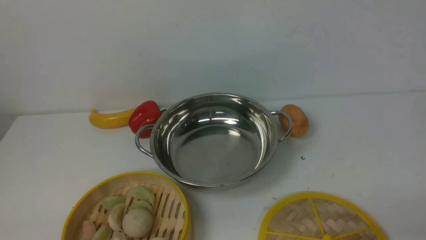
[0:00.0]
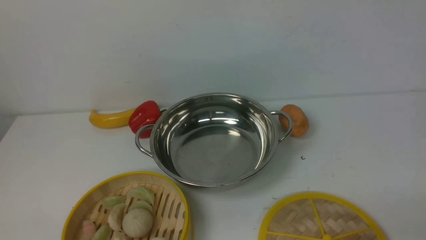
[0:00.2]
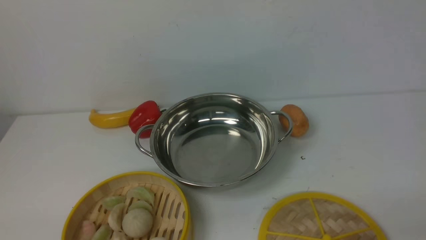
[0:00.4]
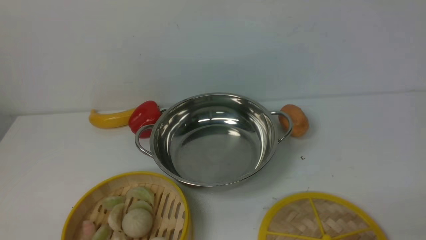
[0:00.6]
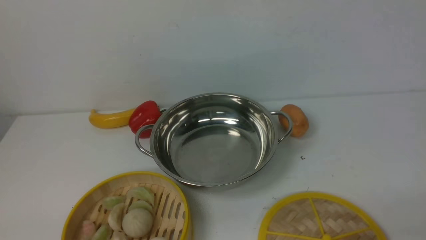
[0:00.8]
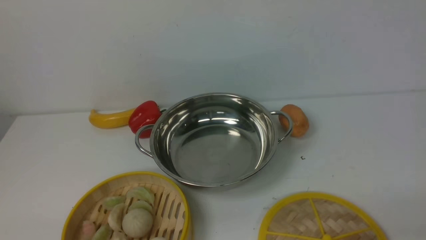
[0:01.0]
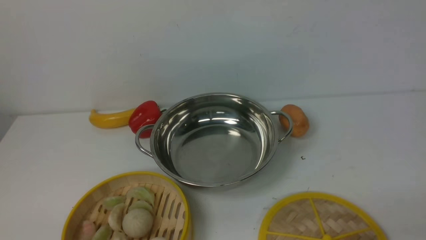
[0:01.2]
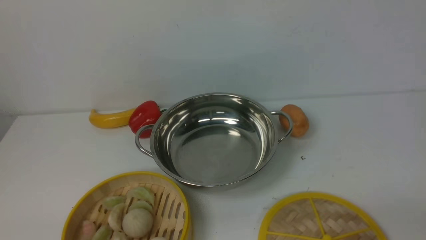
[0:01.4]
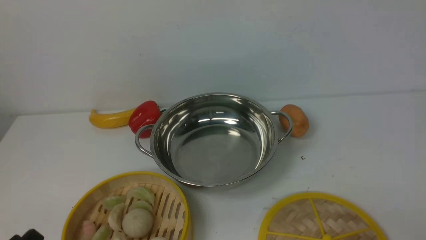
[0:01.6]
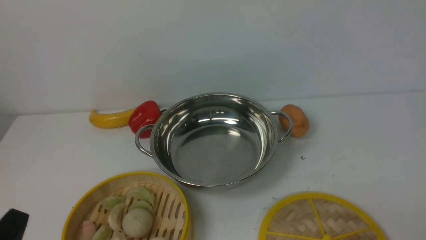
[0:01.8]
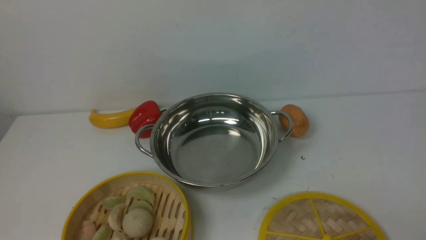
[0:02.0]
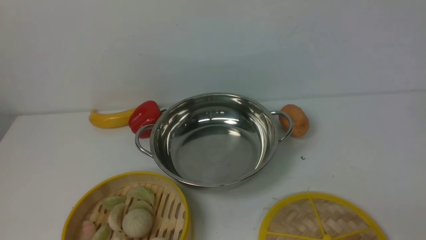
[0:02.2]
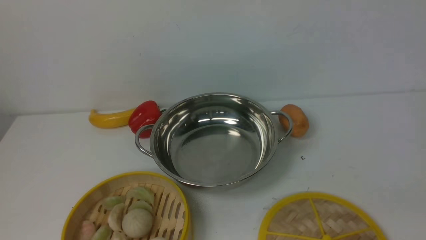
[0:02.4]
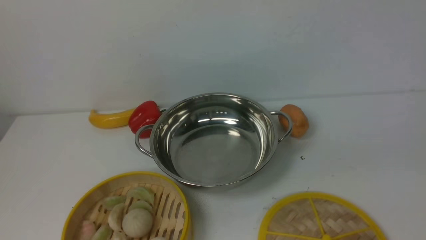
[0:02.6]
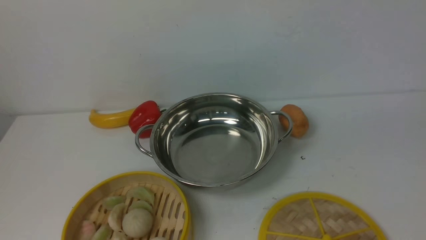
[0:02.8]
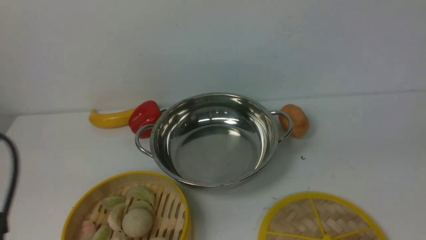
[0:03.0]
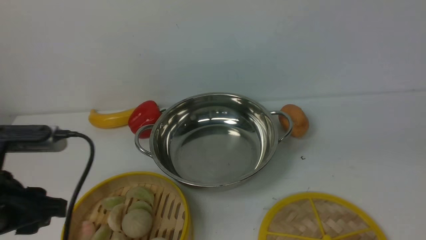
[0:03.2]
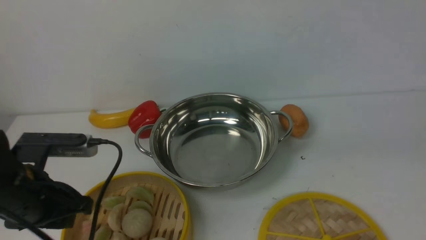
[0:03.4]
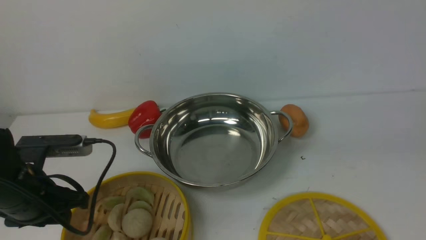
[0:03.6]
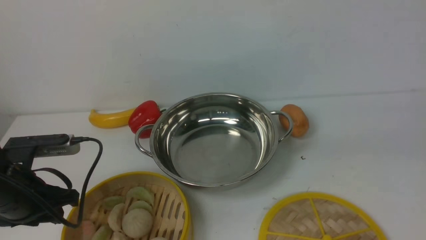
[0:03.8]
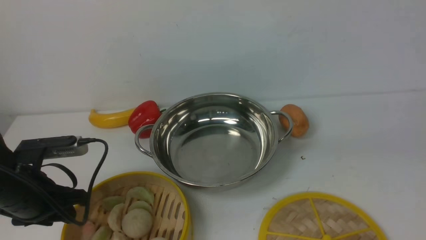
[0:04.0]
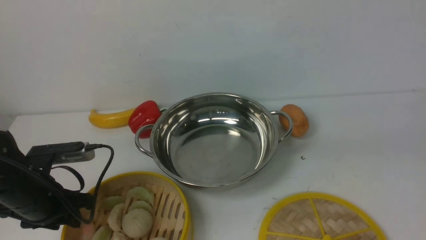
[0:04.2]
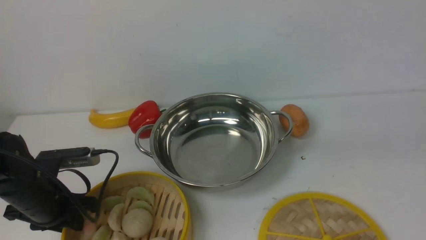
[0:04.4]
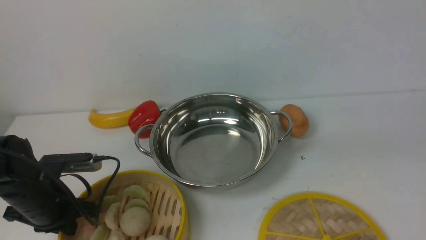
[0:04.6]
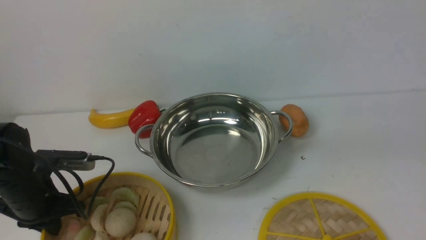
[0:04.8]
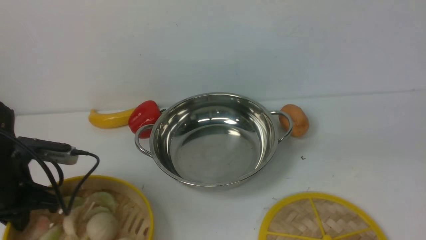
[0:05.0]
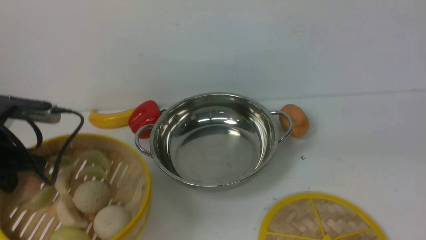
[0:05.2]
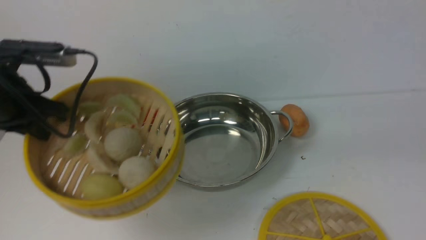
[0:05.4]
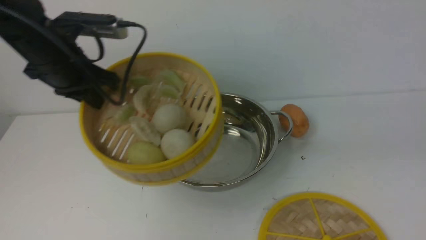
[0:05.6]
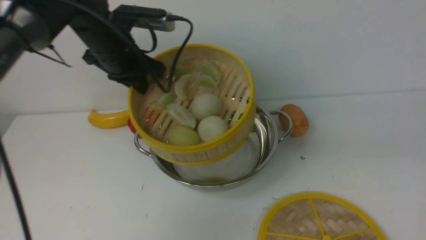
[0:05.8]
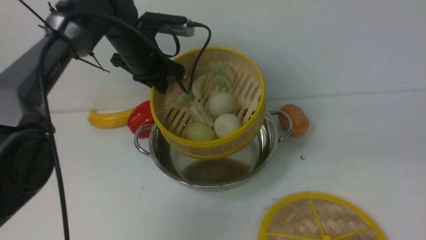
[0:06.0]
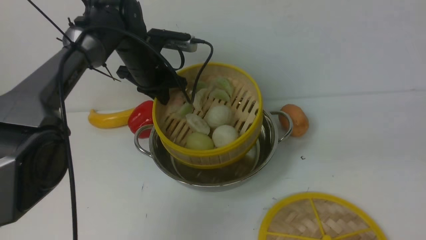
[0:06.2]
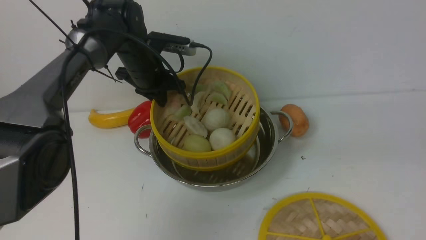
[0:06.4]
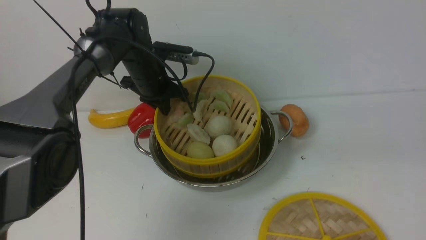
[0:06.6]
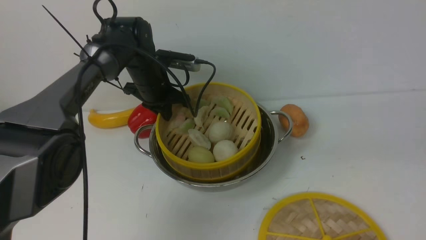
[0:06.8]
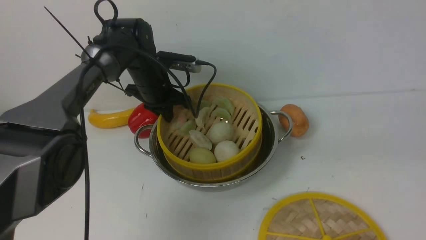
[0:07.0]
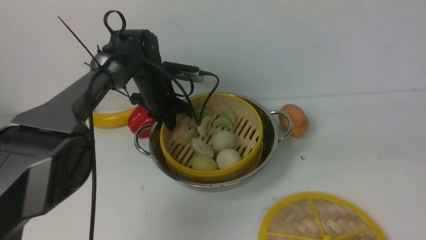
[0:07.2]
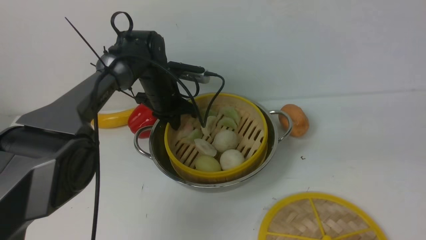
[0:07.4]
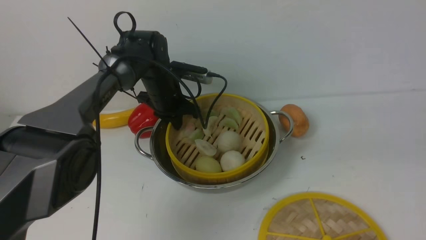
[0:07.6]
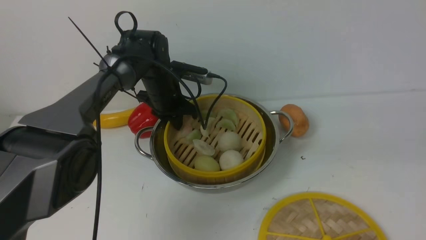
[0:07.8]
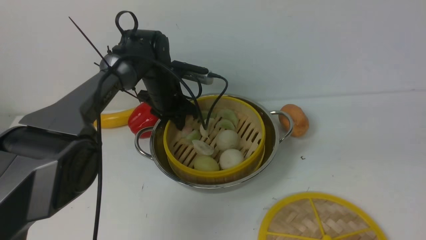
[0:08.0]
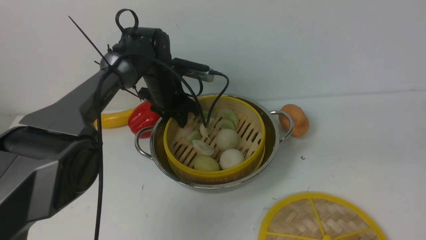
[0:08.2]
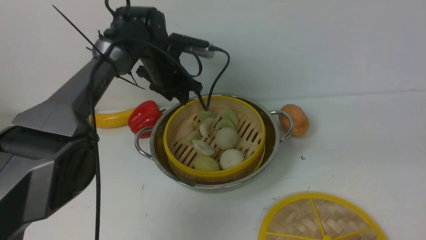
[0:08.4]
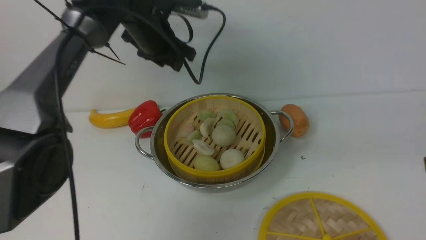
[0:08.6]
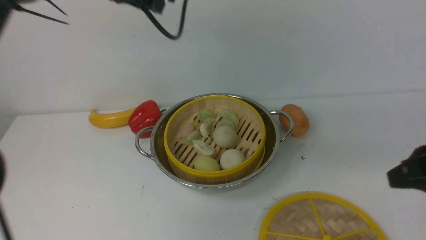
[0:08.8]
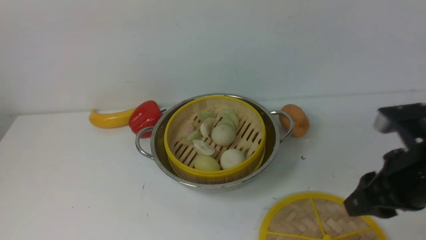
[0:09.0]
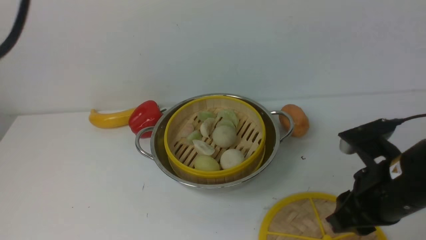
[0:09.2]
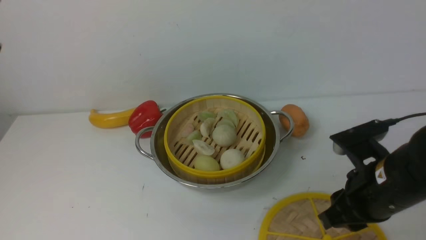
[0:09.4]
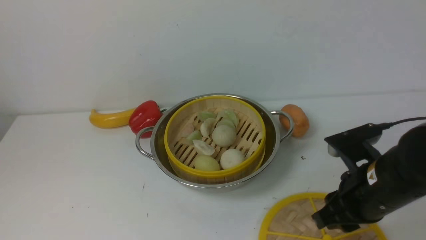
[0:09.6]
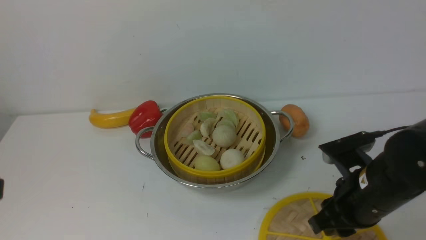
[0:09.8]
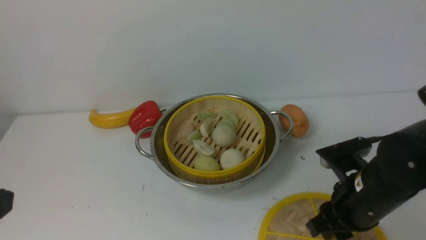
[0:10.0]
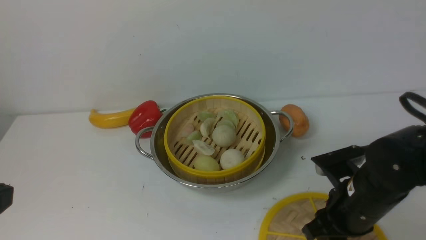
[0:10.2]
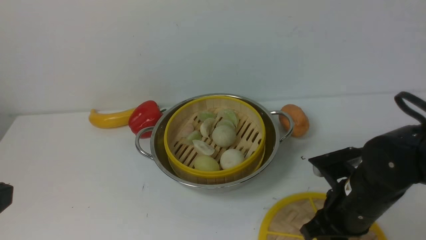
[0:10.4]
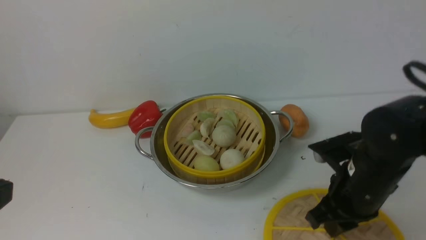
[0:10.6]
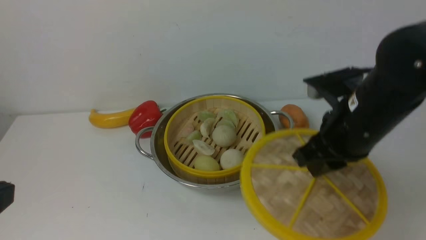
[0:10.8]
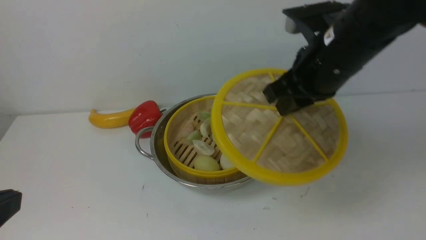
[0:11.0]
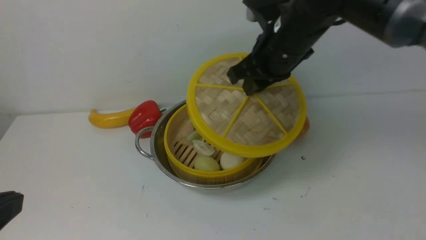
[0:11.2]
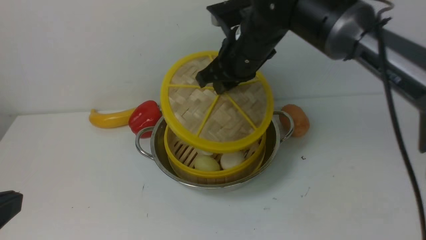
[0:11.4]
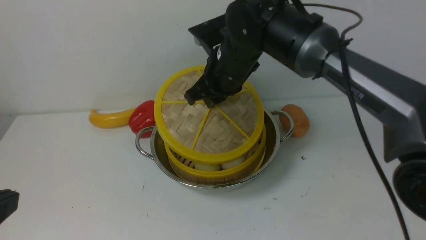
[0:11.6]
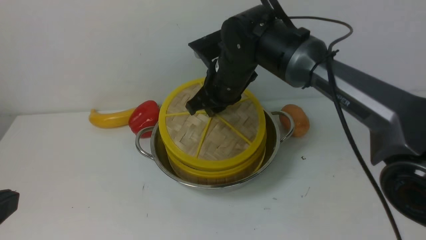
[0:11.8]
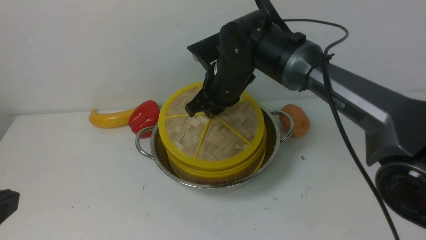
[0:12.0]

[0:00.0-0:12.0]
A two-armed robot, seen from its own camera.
Task of the whole recording: place the steamer in the pot on the white table, and put the lid on the steamer.
Step, 0:00.0 to 0:05.0: use the left arm to lift the steamer closest to it.
Step, 0:05.2 to 0:08.6: use the left arm to put the steamer into the iron steamer pot in the middle.
Step, 0:08.8 to 0:10.8: use the right arm to lift the lid of the steamer.
0:01.6 to 0:03.0: The left gripper heads upward and forward, covering approximately 15 cm.
0:03.0 to 0:04.4: The left gripper shifts approximately 20 cm downward and forward, and closes.
0:04.4 to 0:06.0: The left gripper is displaced forward, to the right and upward by some 25 cm, and closes its fingers.
0:06.0 to 0:07.6: The left gripper goes some 10 cm downward.
0:07.6 to 0:09.0: The left gripper heads upward and backward, covering about 40 cm, and opens and closes again. Meanwhile the right gripper is displaced to the left and downward by about 10 cm.
0:09.0 to 0:10.4: The right gripper is displaced downward and to the left by roughly 10 cm.
0:10.4 to 0:12.0: The right gripper is displaced forward and to the left by about 25 cm.

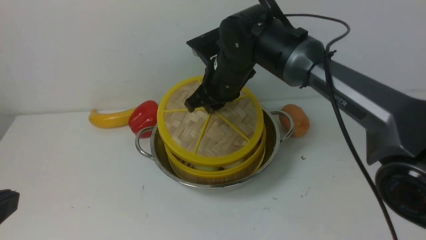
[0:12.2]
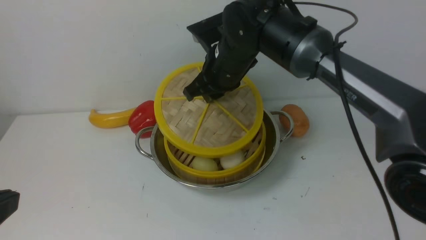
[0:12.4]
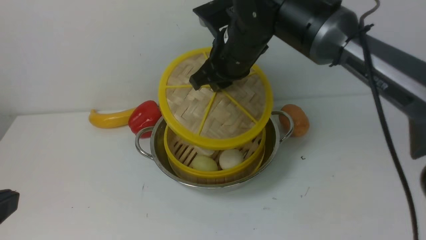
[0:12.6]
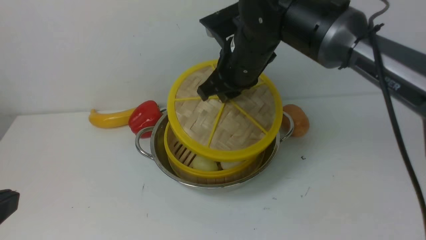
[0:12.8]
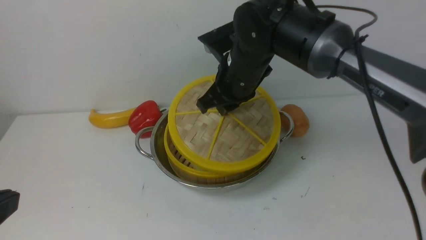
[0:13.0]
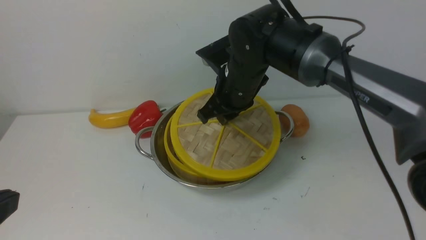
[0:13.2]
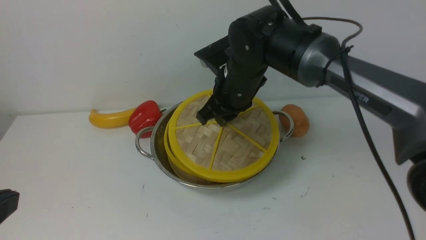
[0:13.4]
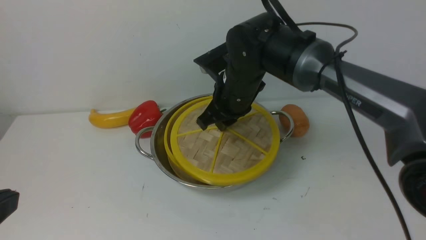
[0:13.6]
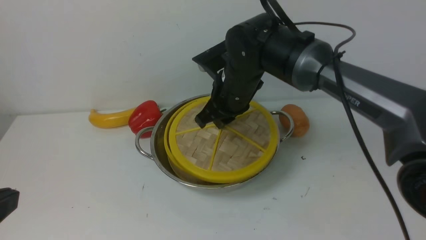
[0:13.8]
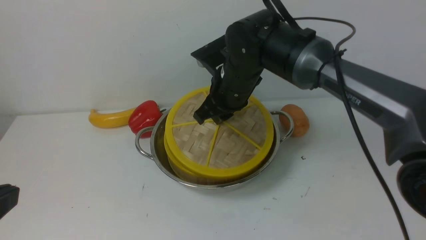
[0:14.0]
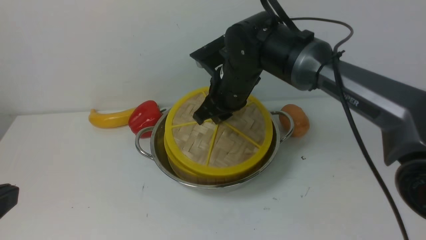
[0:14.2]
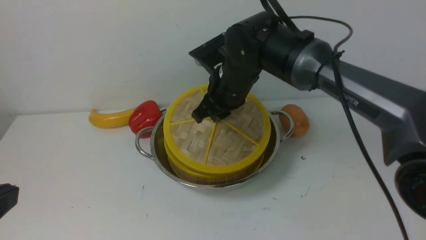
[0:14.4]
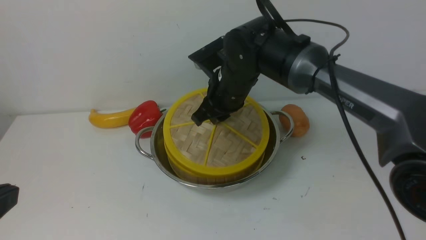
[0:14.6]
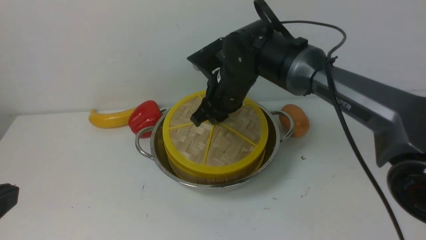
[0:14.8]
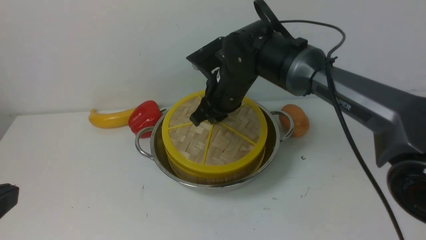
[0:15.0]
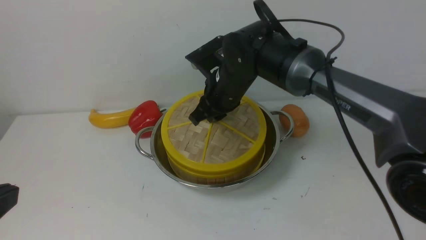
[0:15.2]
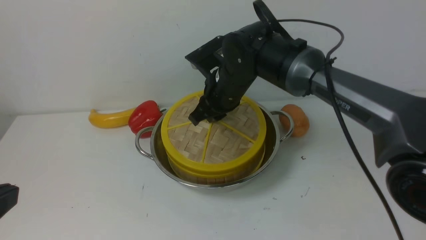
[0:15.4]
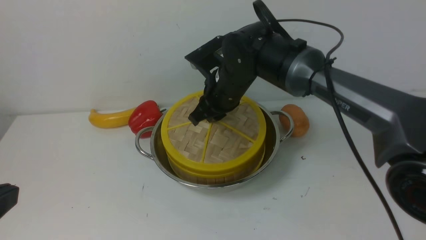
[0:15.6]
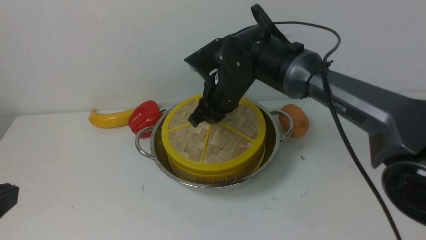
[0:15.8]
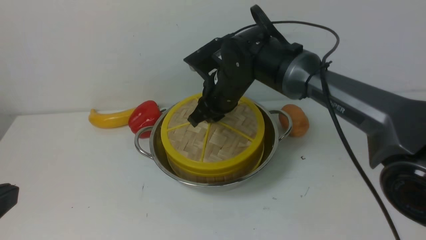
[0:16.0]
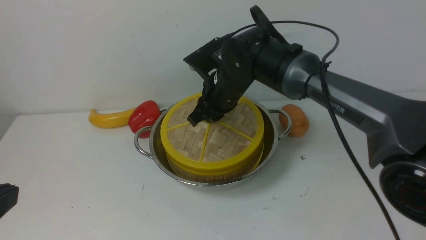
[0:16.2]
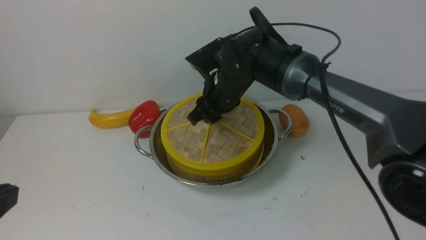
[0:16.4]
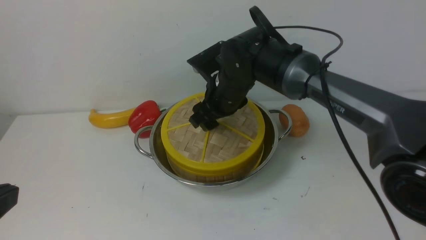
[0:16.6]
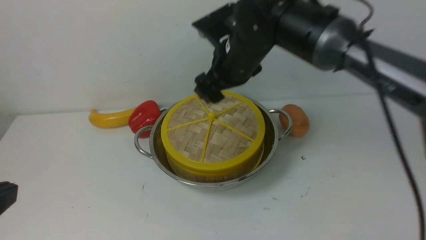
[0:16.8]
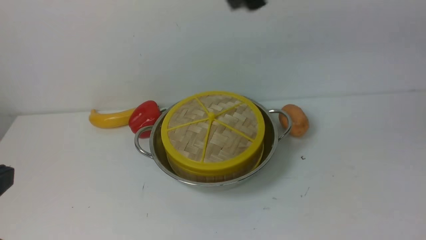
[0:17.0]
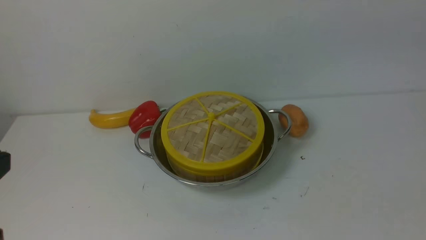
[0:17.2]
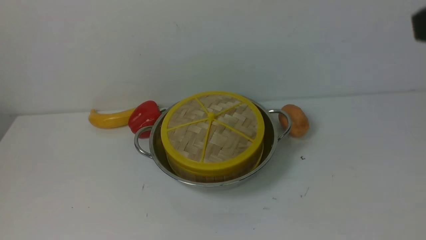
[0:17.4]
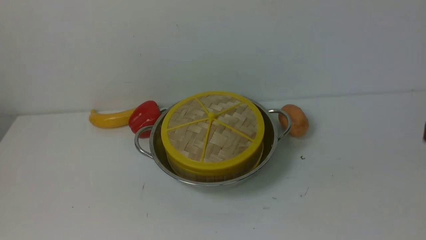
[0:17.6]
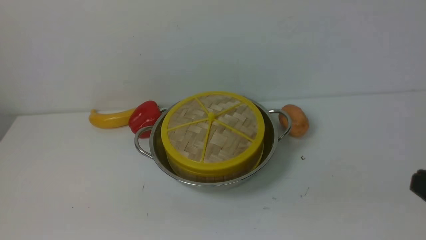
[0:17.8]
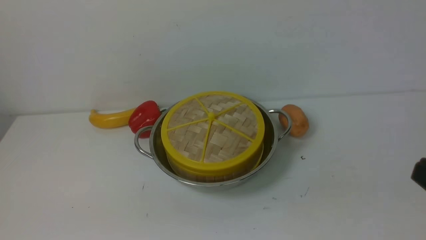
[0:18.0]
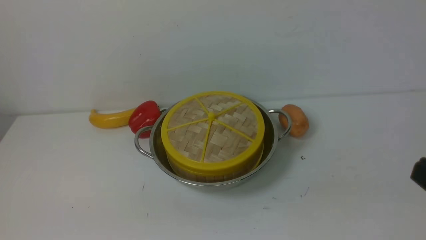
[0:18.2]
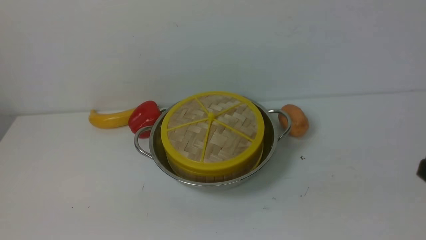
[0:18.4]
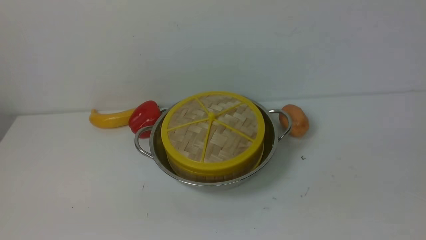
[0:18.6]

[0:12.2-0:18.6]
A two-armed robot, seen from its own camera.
Task of the whole recording: place the steamer in the pot on the white table, and put the lid on the steamer.
Step, 0:12.2 to 0:17.2: use the right arm to place the steamer lid on the steamer.
0:12.2 to 0:15.4: The grippers move only a little.
0:15.4 to 0:17.0: The right gripper shifts roughly 25 cm upward, backward and to the right, and opens.
0:17.0 to 0:18.6: The right gripper travels backward, to the right and downward by roughly 35 cm, and closes its fingers. The left gripper shifts some 10 cm downward and backward.
